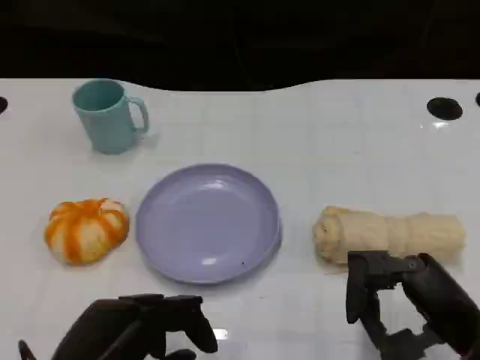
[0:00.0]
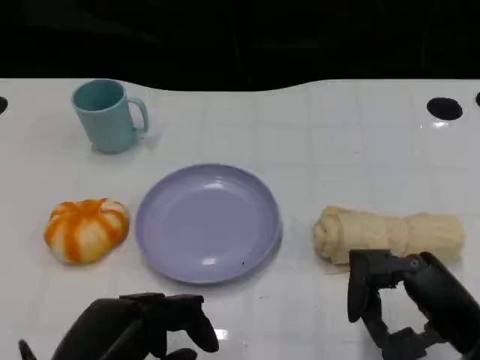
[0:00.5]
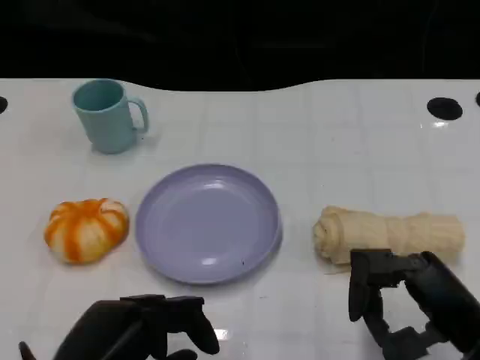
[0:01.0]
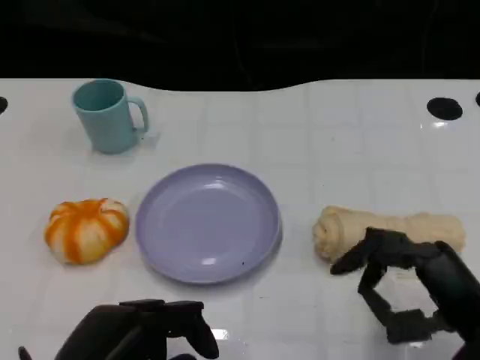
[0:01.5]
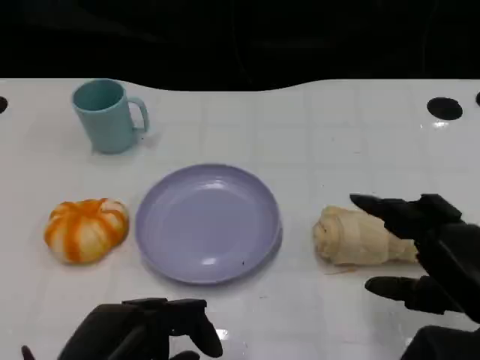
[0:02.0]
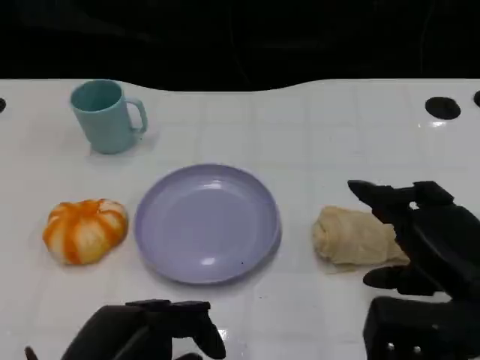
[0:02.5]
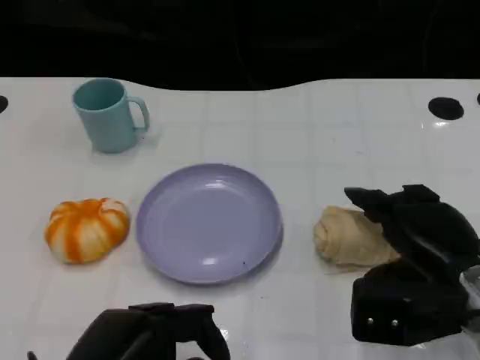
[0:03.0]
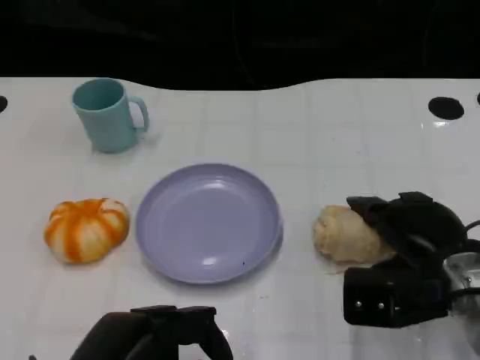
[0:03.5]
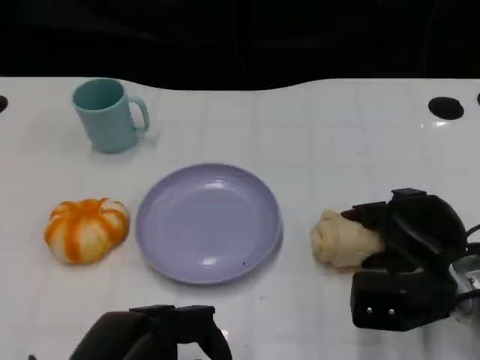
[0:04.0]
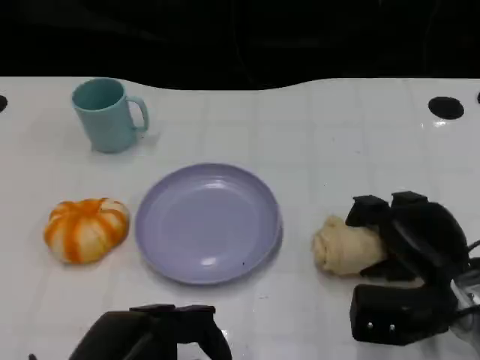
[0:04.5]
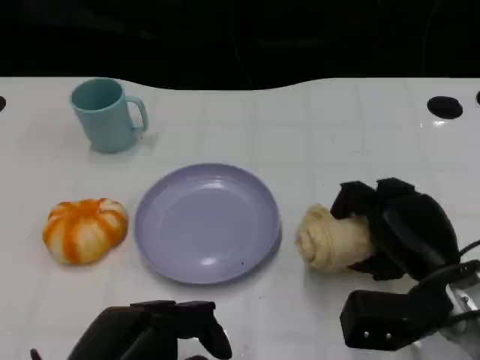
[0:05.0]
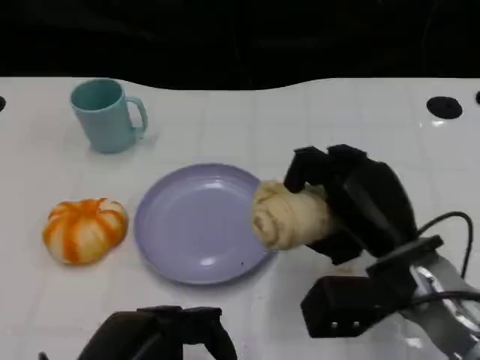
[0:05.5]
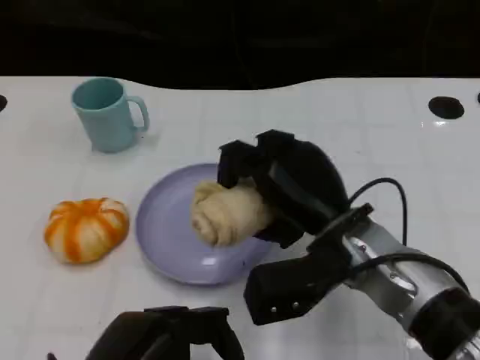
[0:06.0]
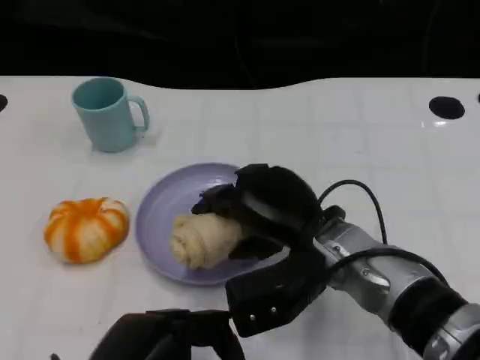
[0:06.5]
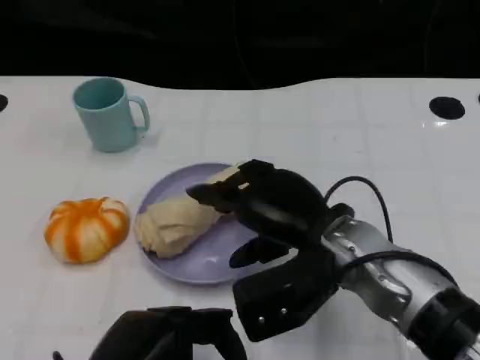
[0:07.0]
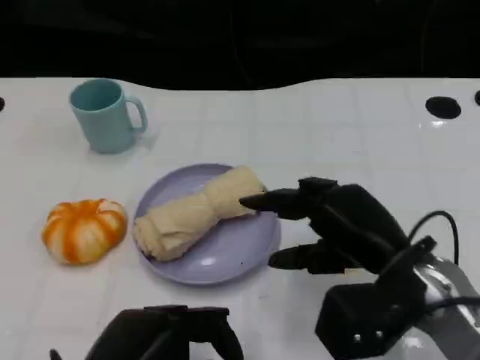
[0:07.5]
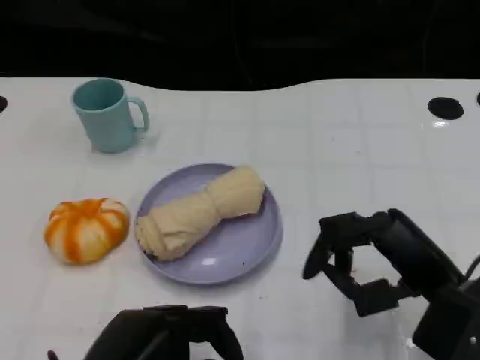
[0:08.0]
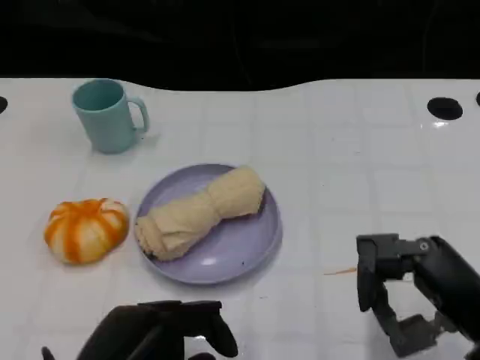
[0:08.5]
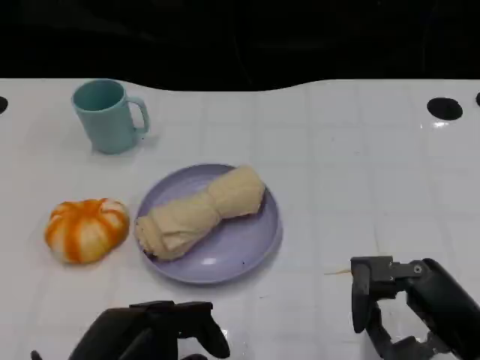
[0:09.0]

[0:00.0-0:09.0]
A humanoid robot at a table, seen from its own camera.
Task of the whole recording: Grasp the towel on the left side of the plate with the left hand and place it into the plate.
0:02.0 to 0:04.5: The right hand shifts approximately 10 cm forward and downward.
0:04.5 to 0:07.0: The right hand heads to the left and upward, covering some 15 cm.
0:07.0 to 0:09.0: The right hand moves to the right and backward, approximately 15 cm.

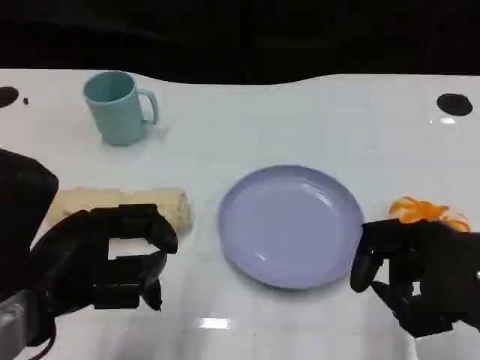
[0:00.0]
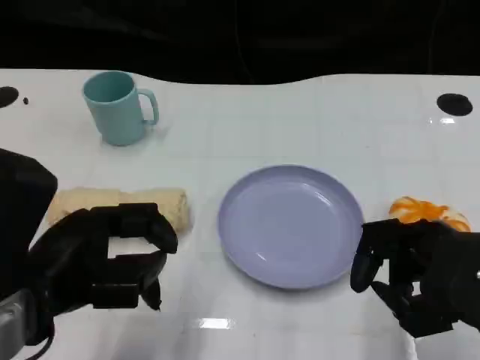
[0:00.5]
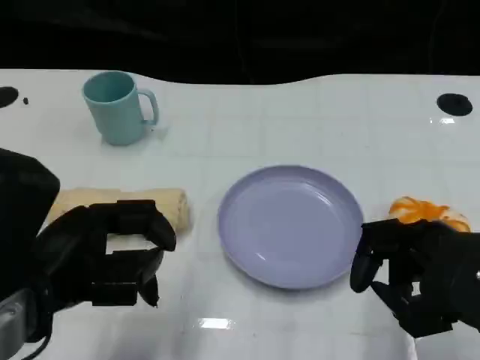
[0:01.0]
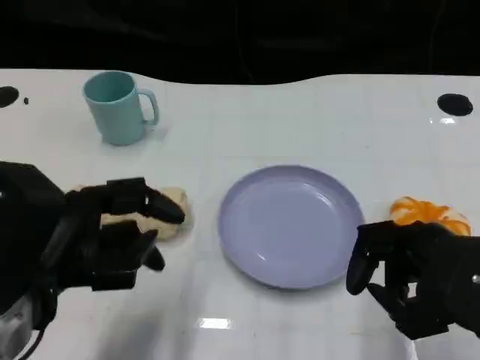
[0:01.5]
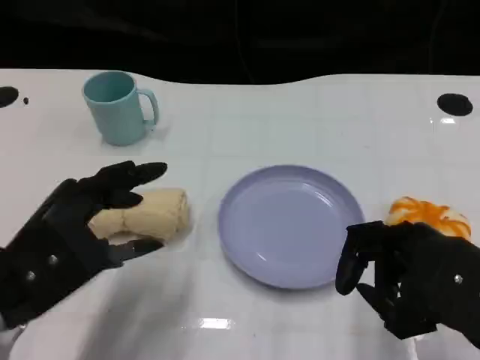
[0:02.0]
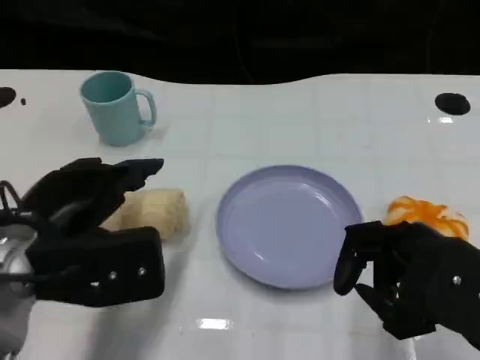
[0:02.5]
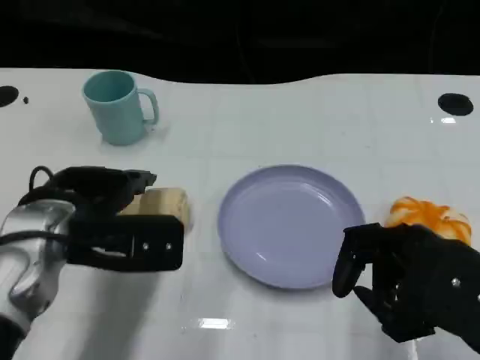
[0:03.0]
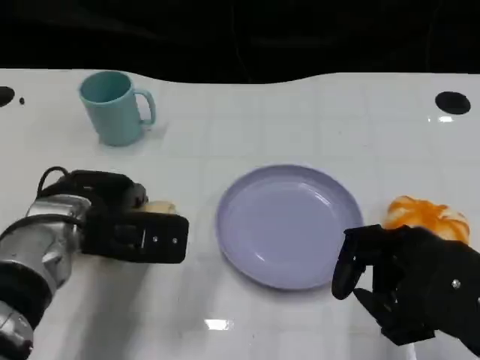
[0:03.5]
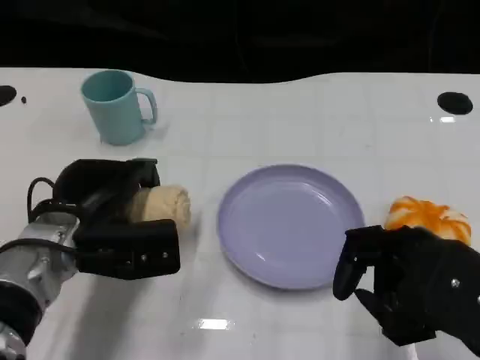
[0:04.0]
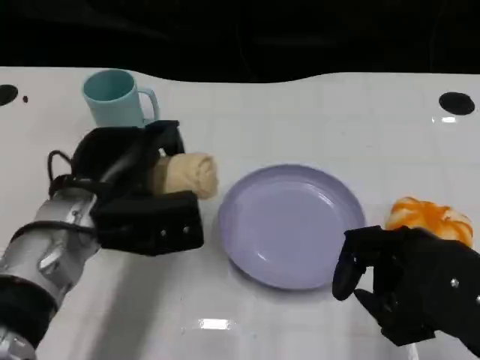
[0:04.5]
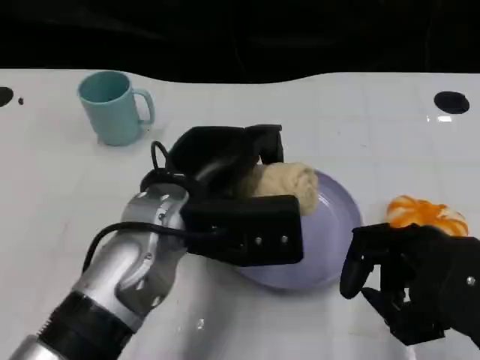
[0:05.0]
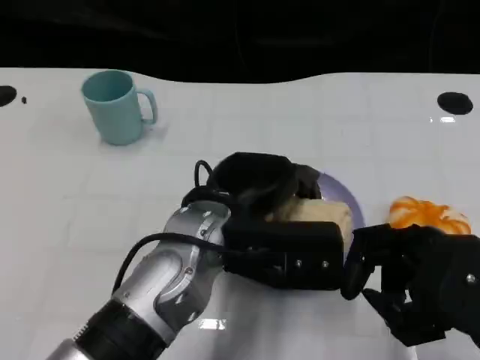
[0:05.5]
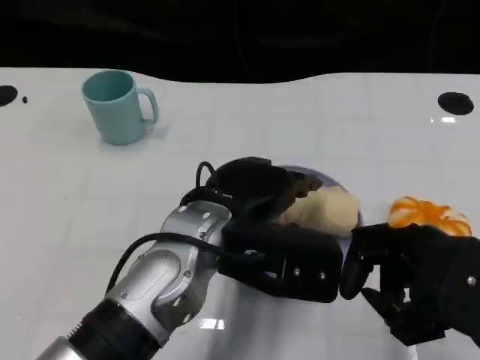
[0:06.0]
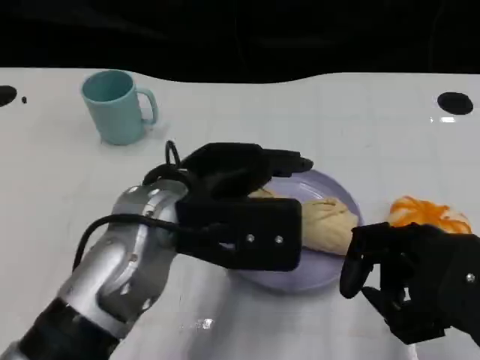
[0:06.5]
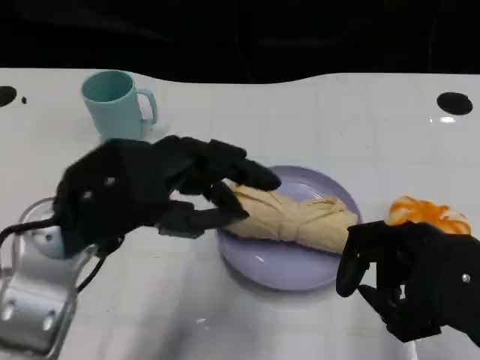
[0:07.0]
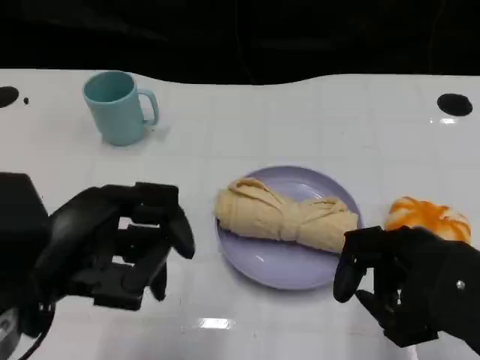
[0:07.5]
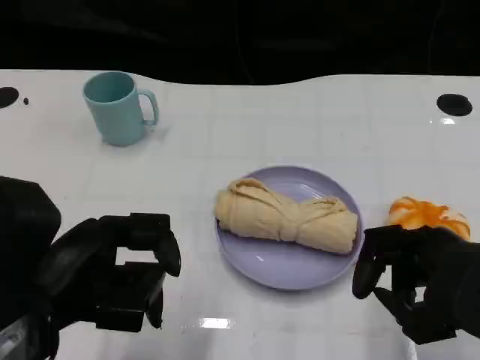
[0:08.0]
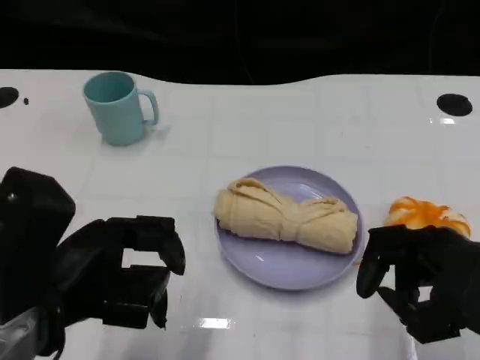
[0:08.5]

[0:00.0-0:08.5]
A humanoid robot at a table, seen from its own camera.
Task of the whole recording: Grasp the towel on the left side of the plate with the left hand and place it into the plate.
0:02.0 to 0:04.0: The left hand shifts approximately 10 cm forward and downward.
0:04.0 to 0:06.5: The left hand moves upward and to the right, about 15 cm.
0:06.5 to 0:08.5: The left hand travels to the left and backward by approximately 15 cm.
